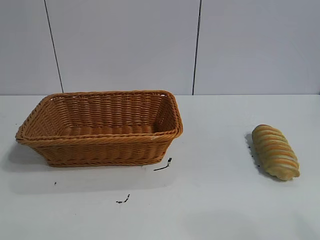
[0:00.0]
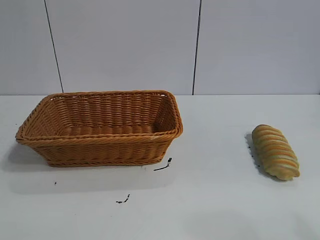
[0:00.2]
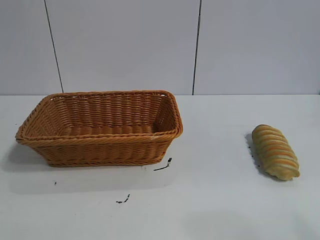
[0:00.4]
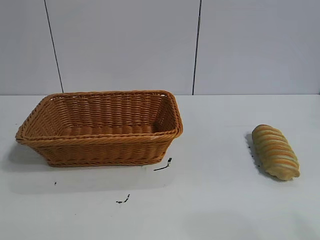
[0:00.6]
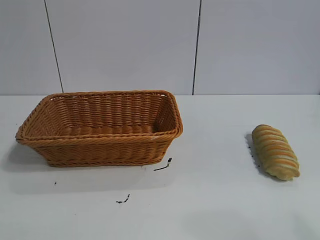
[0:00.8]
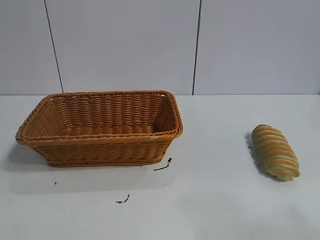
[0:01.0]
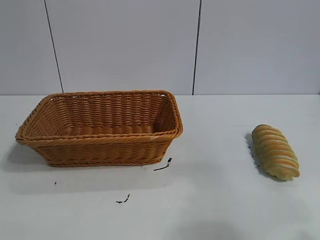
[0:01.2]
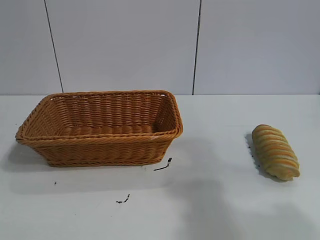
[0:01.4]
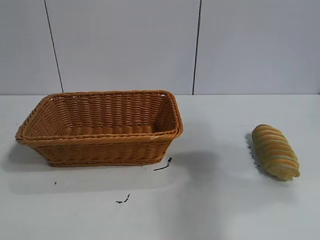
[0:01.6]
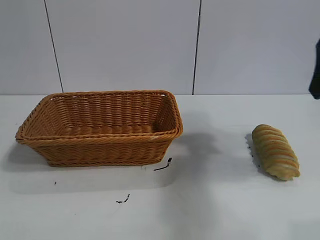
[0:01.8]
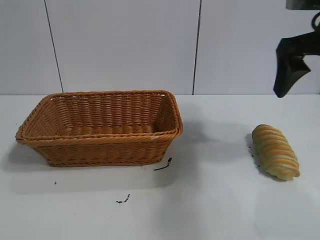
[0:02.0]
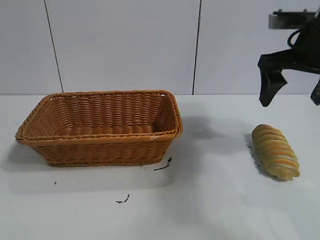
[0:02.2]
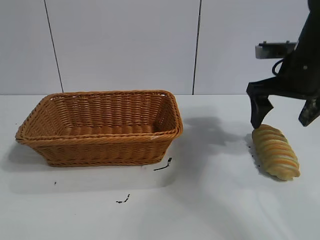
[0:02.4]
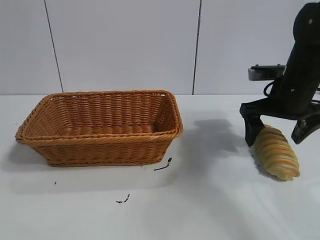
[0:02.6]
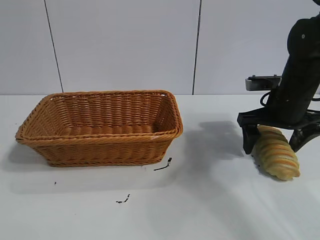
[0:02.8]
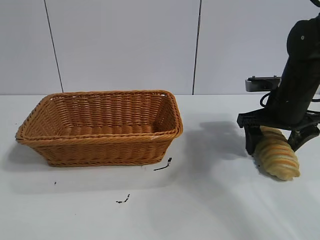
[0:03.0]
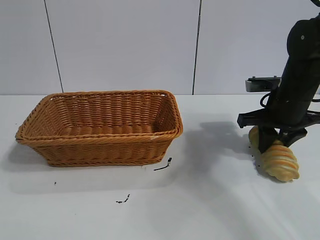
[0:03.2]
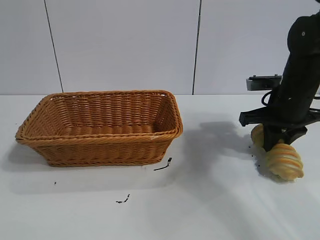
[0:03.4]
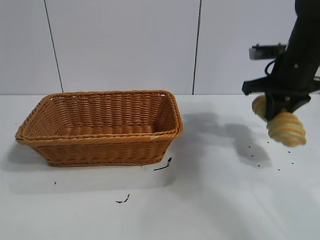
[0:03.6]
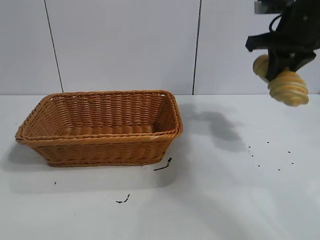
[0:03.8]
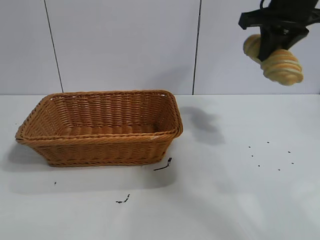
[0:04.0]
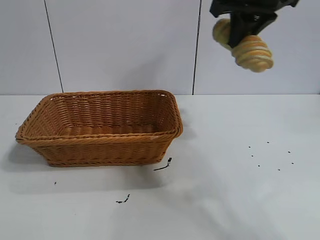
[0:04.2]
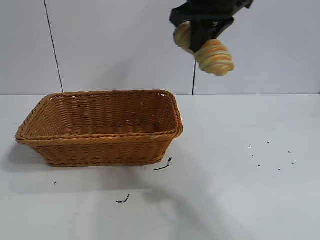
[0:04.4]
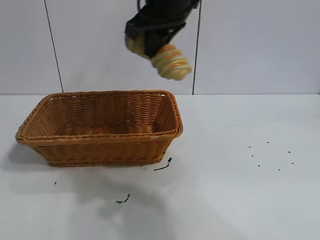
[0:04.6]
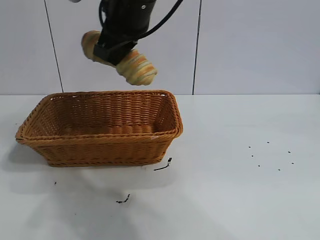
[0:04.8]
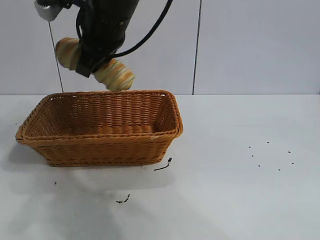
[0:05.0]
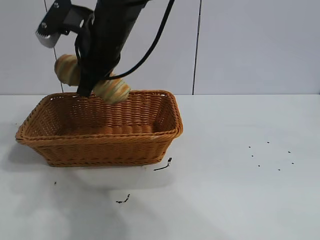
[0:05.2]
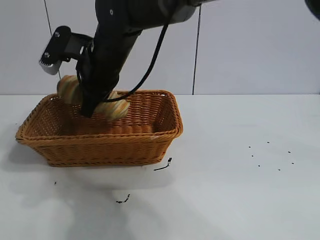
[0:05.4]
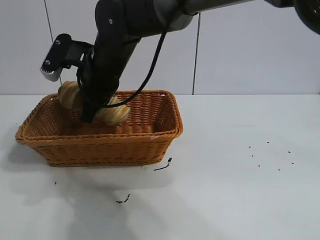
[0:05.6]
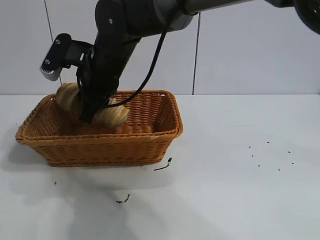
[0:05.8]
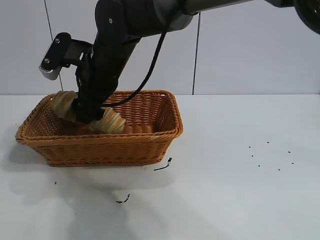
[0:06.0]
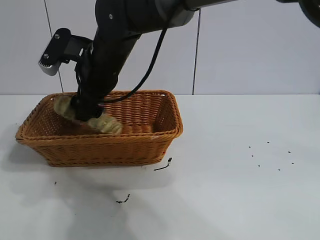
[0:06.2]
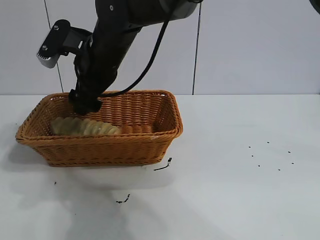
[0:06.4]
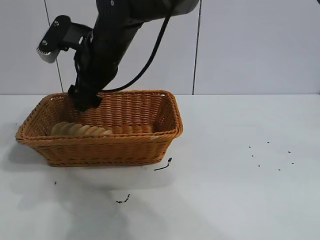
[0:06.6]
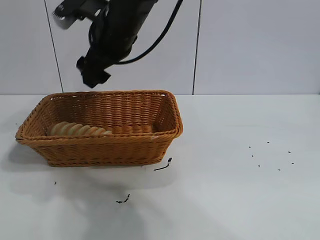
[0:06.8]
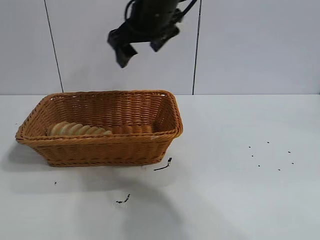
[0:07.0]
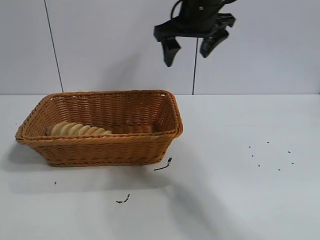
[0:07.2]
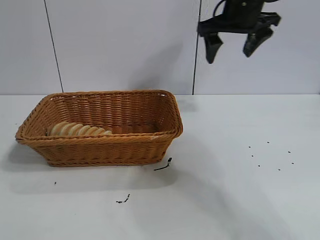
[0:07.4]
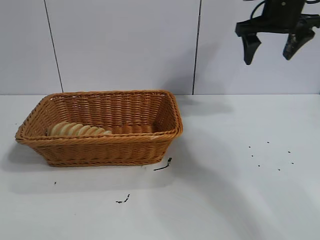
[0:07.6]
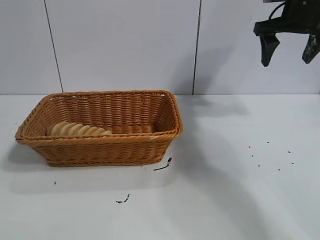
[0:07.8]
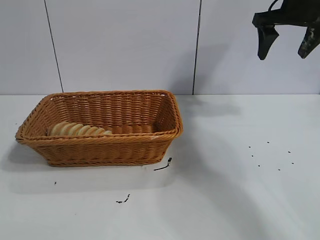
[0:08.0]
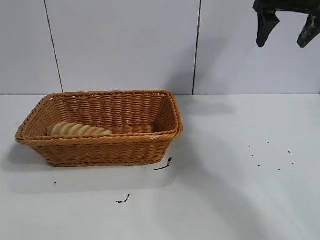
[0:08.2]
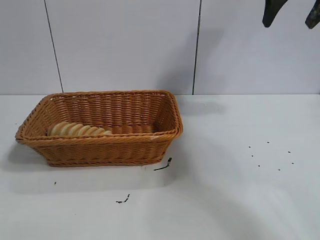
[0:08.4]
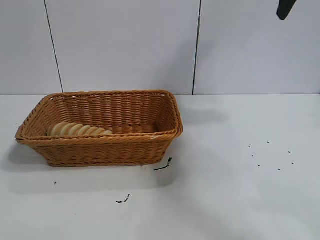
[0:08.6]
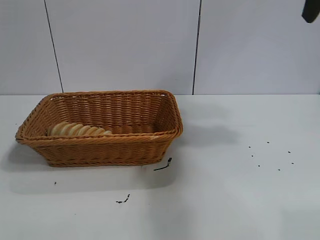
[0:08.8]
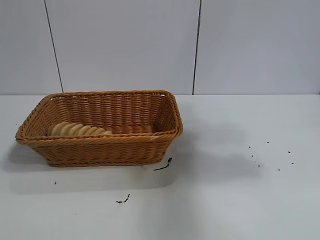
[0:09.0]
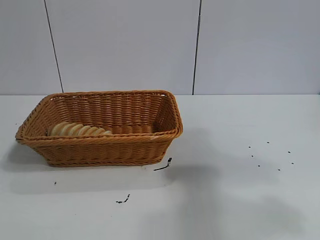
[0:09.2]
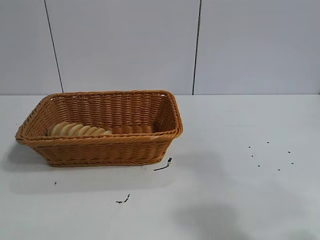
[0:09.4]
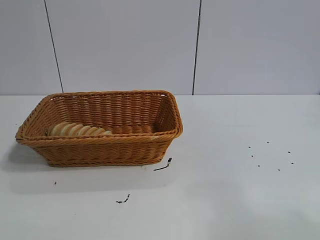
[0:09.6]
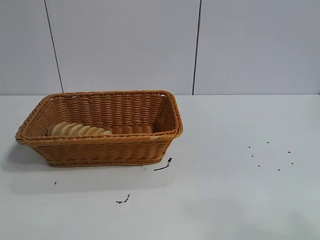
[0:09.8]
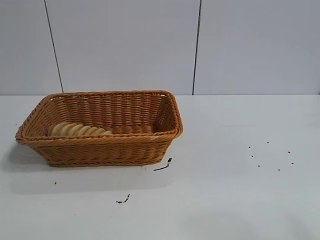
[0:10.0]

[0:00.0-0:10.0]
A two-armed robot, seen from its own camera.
Task of the whole recording: pick up the long bread and put it into the basket.
Step, 0:01.8 to 0:03.4: Grasp the long bread with right gripper.
Step, 0:03.6 to 0:06.6: Place the long bread in the basket with right gripper.
